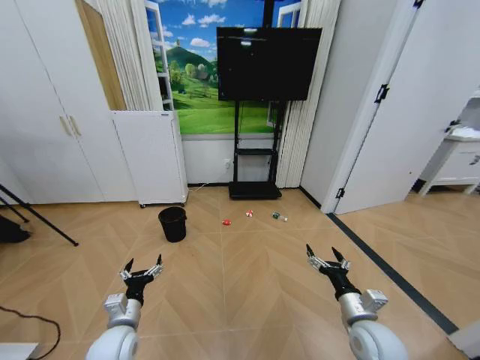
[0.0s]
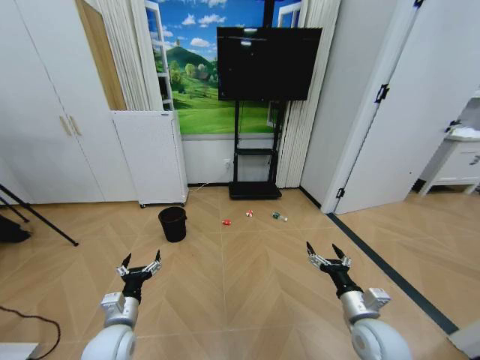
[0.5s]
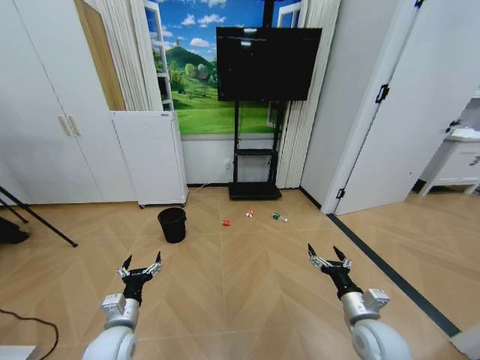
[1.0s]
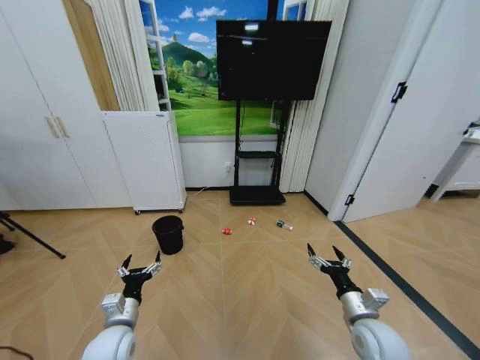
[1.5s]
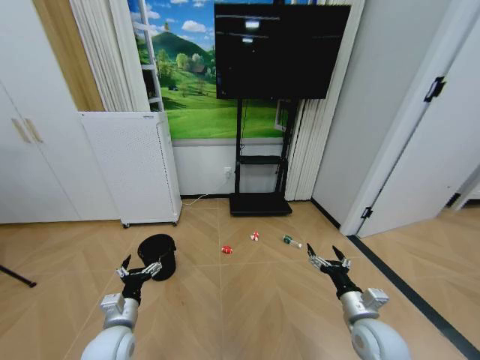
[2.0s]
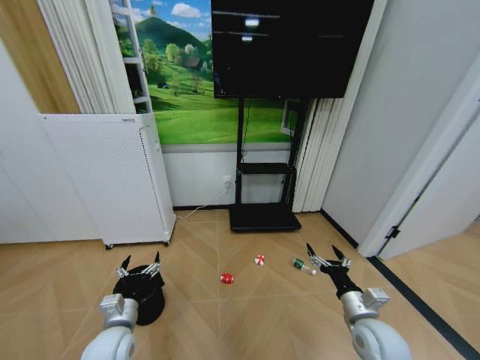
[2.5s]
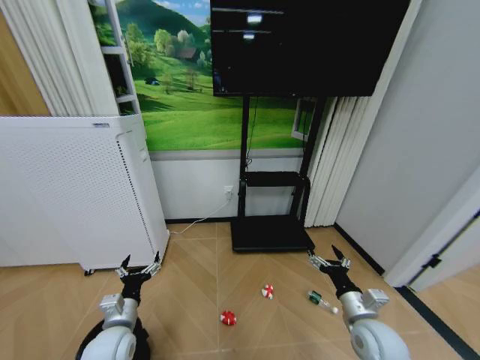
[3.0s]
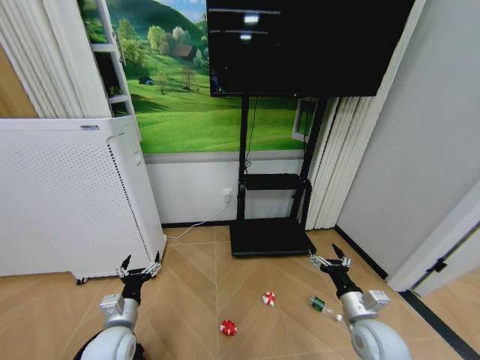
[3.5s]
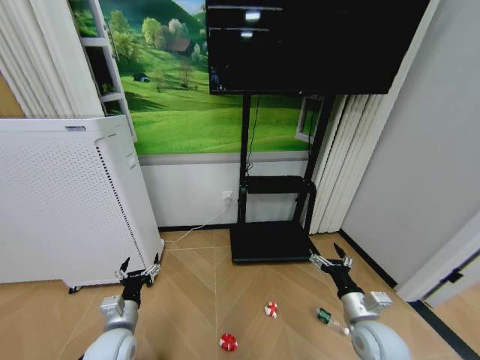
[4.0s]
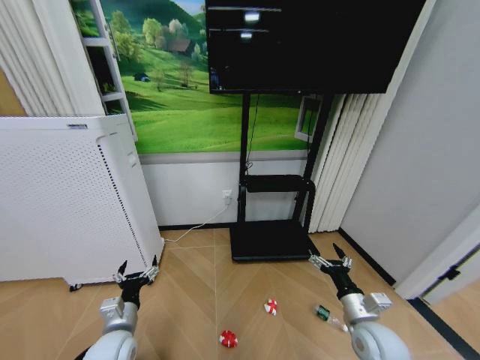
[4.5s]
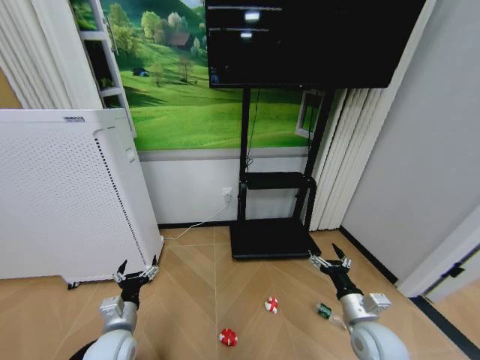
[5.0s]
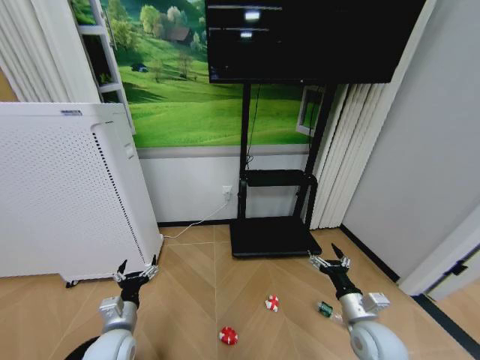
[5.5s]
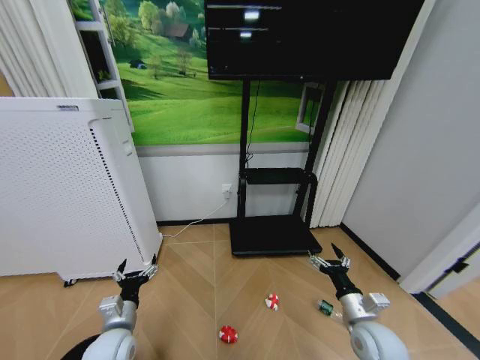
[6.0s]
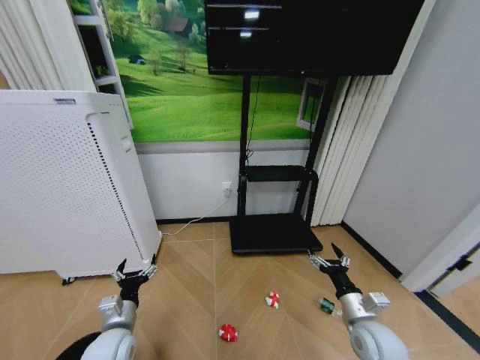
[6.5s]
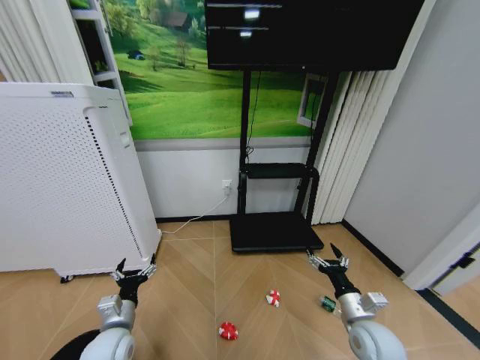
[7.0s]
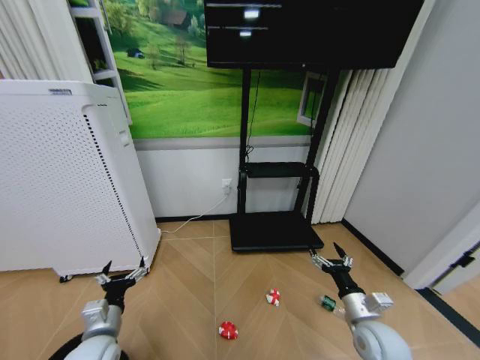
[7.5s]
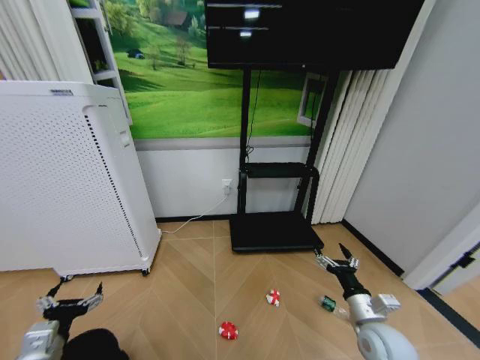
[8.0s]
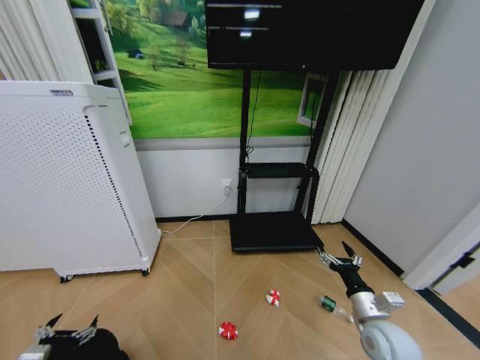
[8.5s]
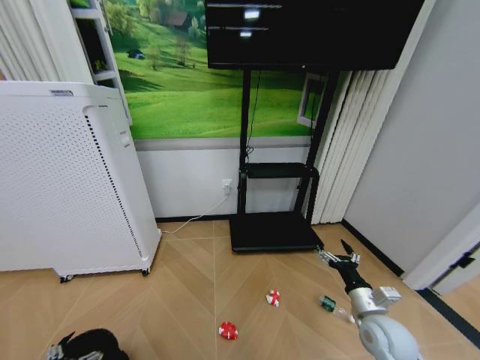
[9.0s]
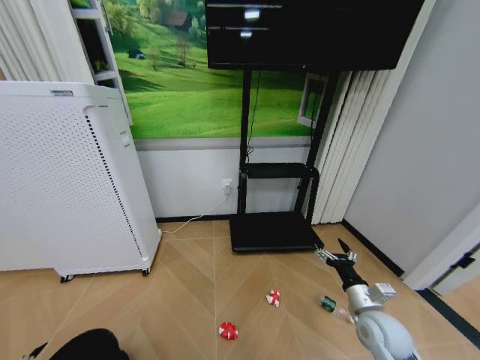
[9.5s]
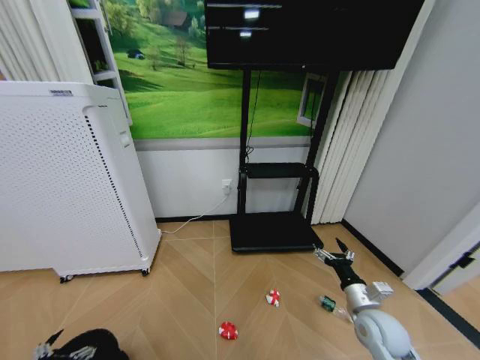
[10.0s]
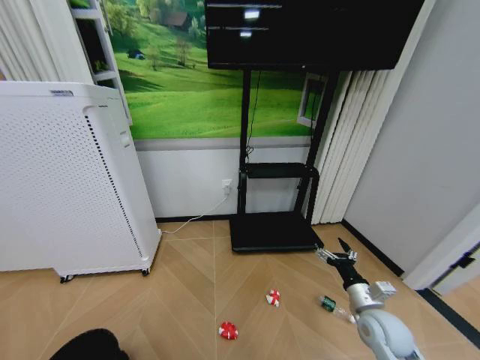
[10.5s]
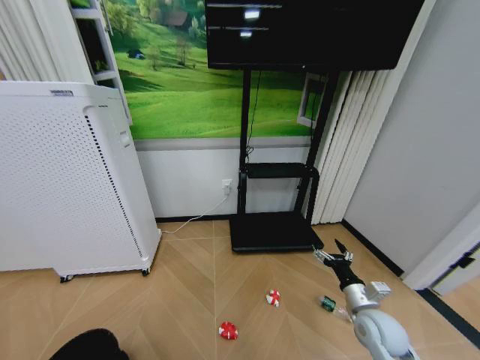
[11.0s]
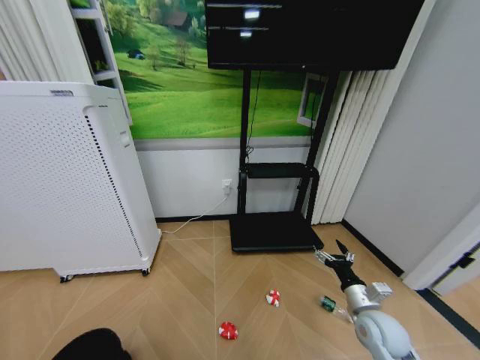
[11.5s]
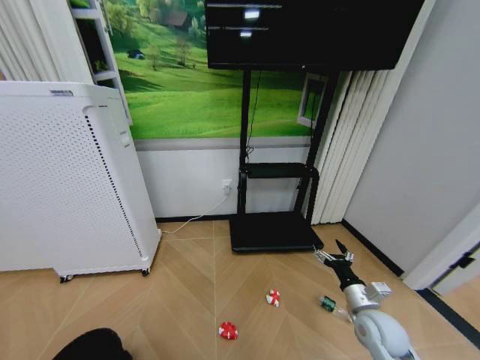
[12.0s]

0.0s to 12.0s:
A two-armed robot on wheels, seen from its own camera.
Task of the whole recording: Pick up the trash bin and place the garbage on the floor into it.
4.0s to 6.0s: Both grippers stay put.
6.0s to 8.0s: The left gripper travels to the left, backward and upward by some 15 cm.
8.0s to 10.0s: The left gripper is displaced downward and backward by approximately 10 cm.

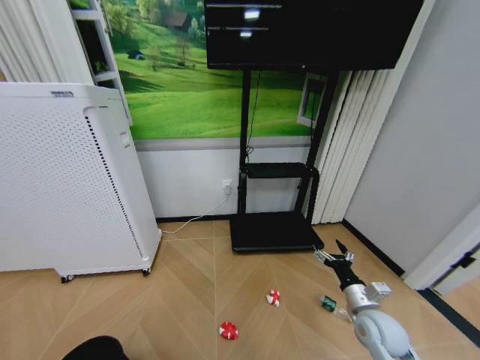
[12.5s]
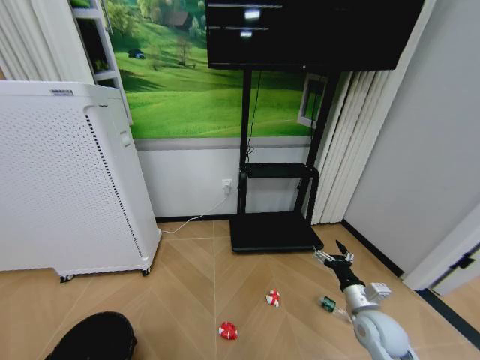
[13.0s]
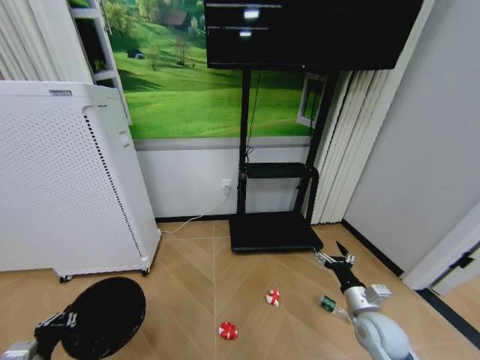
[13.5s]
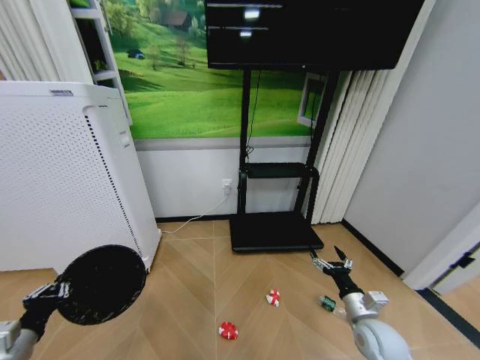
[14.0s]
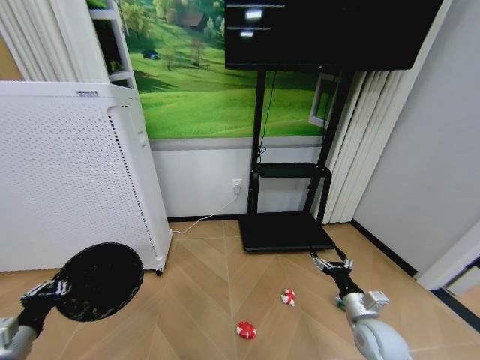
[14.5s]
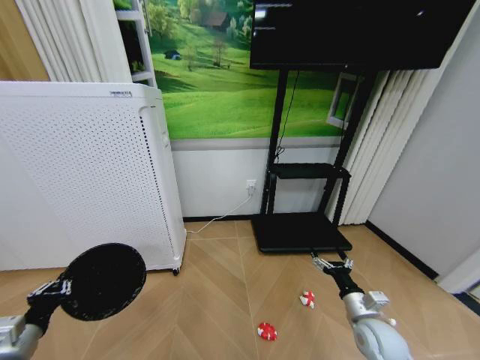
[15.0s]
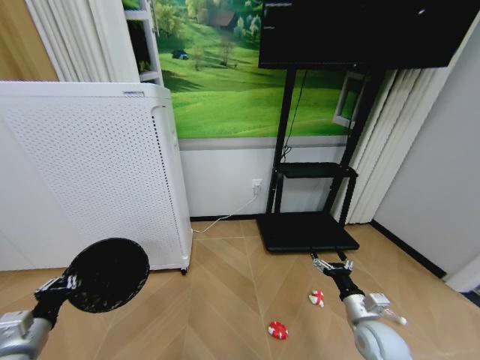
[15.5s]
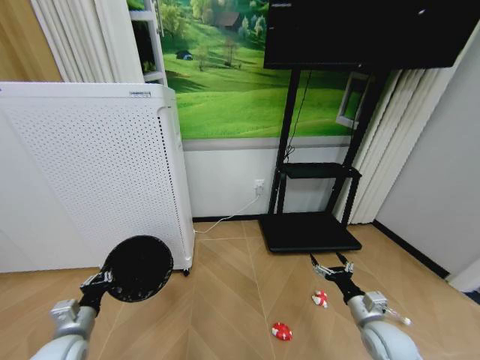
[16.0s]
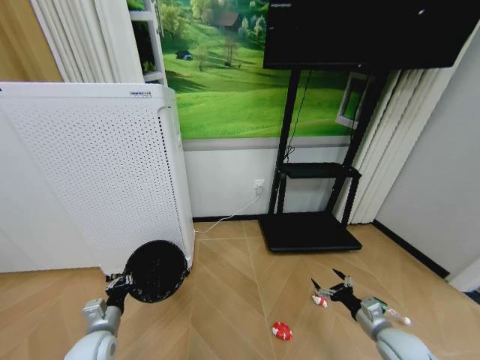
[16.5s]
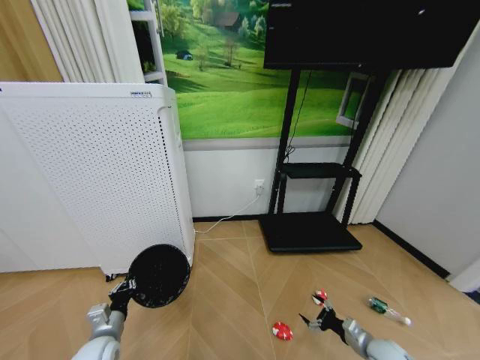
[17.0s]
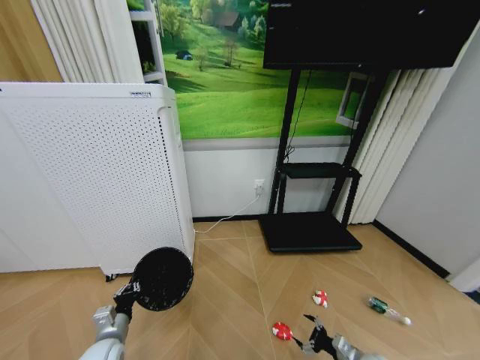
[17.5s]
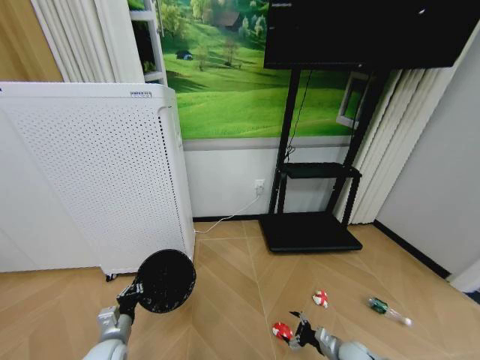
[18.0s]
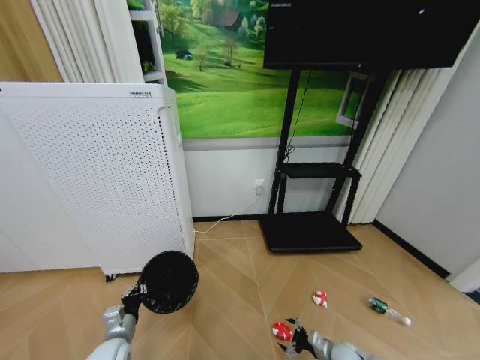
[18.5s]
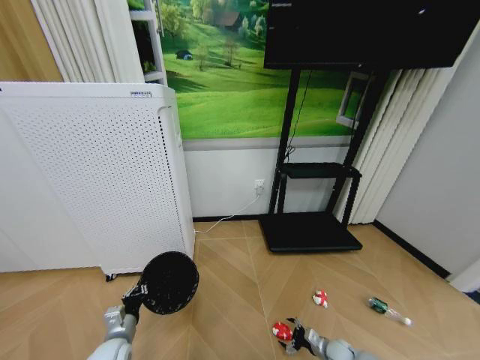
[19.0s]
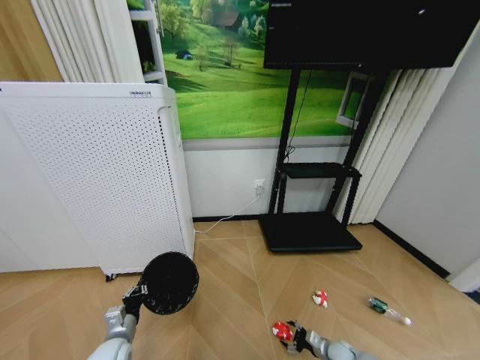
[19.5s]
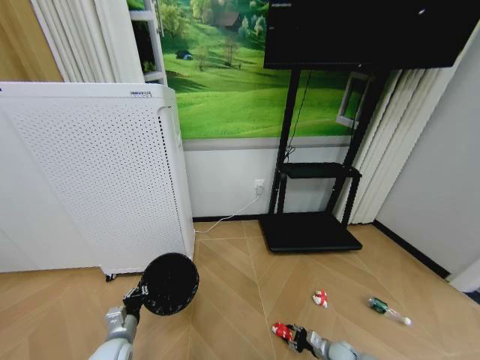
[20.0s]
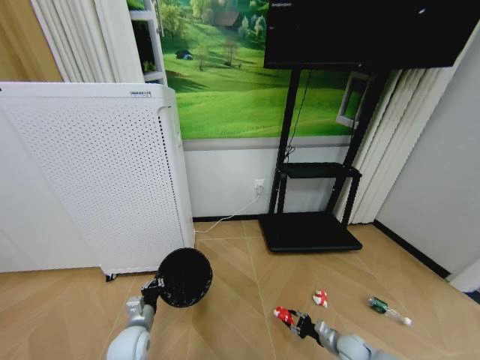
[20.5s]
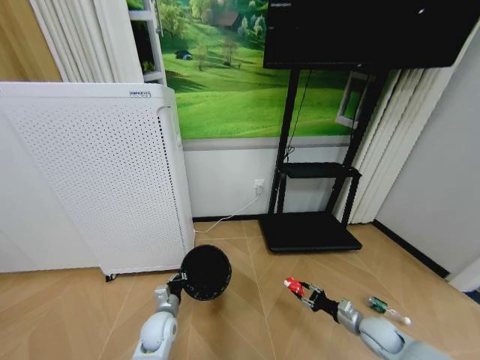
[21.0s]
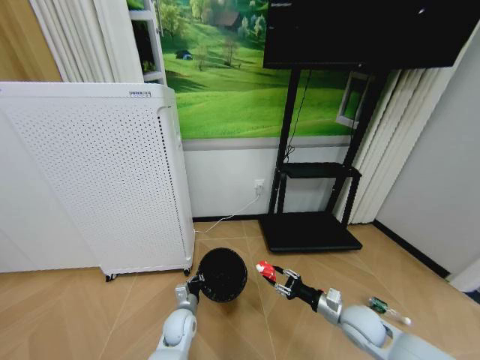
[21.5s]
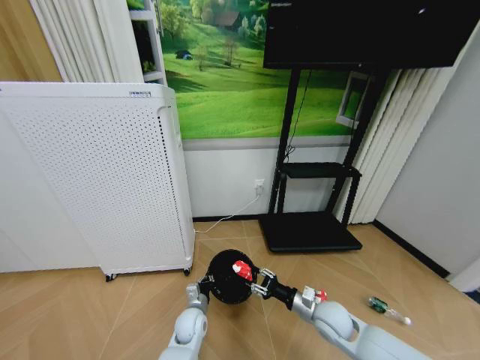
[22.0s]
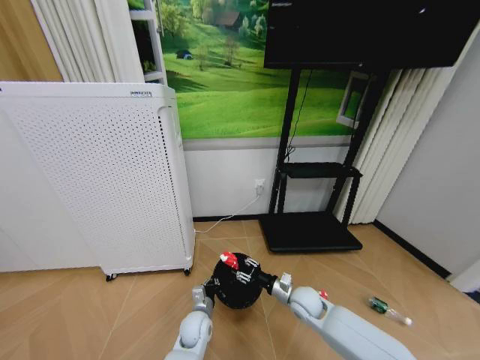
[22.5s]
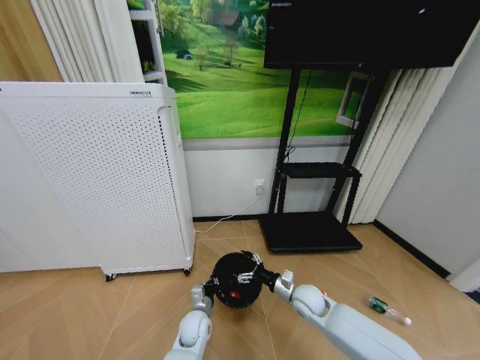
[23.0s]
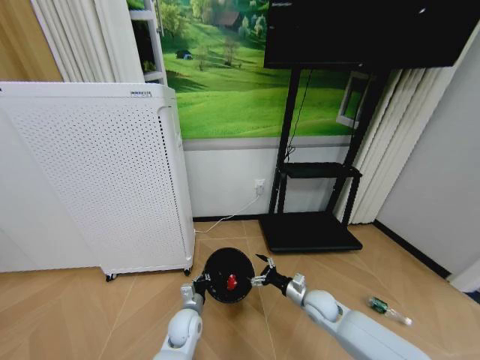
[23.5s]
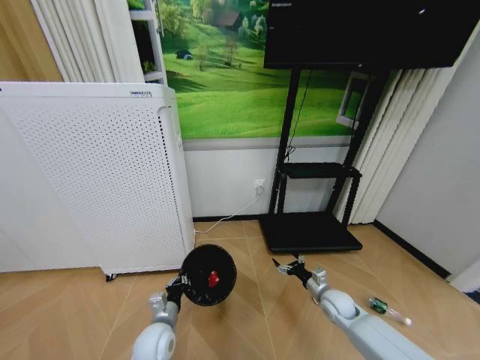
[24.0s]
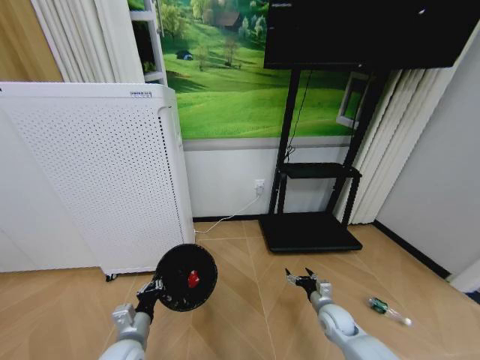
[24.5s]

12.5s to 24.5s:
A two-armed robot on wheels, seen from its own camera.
Task of the whole recording: Pick up the trash bin and place the garbage on the floor into it.
12.5s to 14.5s: The left gripper is displaced upward and forward by roughly 20 cm.
14.5s to 16.5s: The left gripper shifts about 15 cm downward, to the right and forward. Meanwhile the right gripper goes some 5 cm to the right.
16.5s to 18.5s: The right gripper goes roughly 15 cm downward.
18.5s to 20.5s: The right gripper closes its fingers.
20.5s to 22.5s: The right gripper is displaced to the left, upward and forward by about 25 cm, while the left gripper shifts some 15 cm to the right.
22.5s to 24.5s: The left gripper travels to the left, upward and backward by about 20 cm; the right gripper goes some 10 cm to the right and downward, and opens.

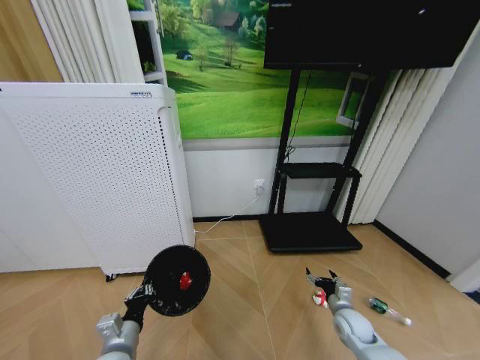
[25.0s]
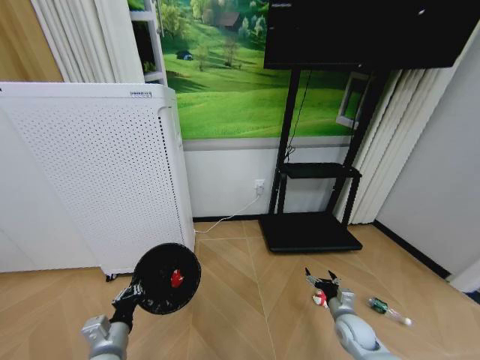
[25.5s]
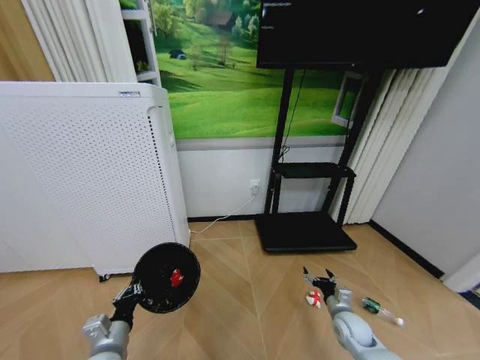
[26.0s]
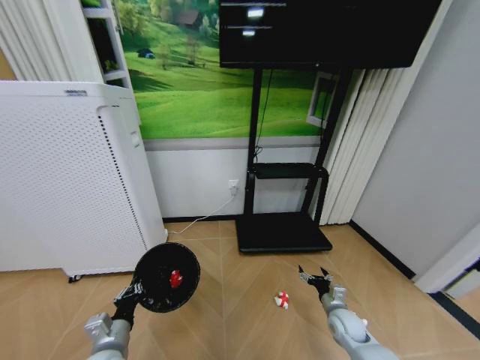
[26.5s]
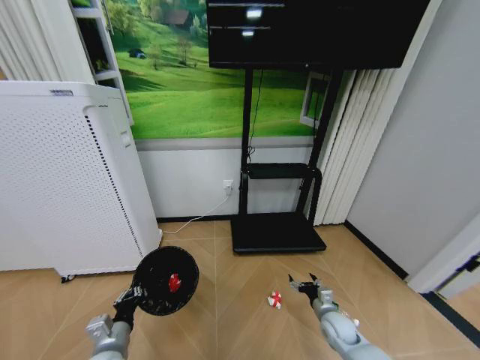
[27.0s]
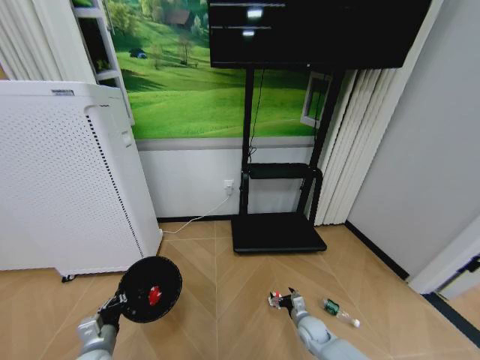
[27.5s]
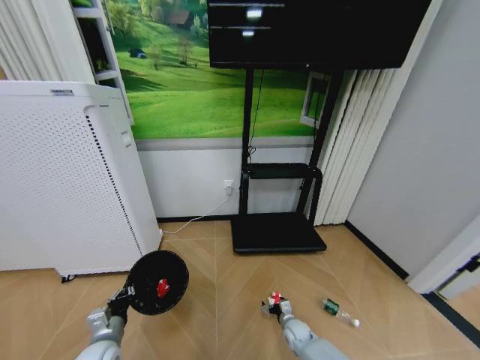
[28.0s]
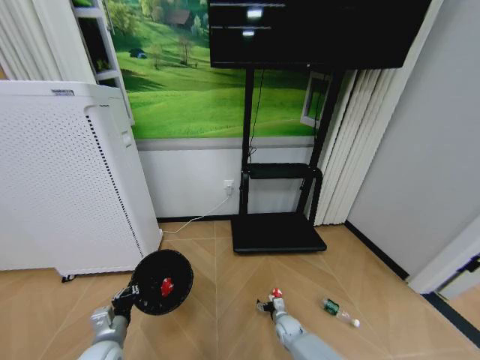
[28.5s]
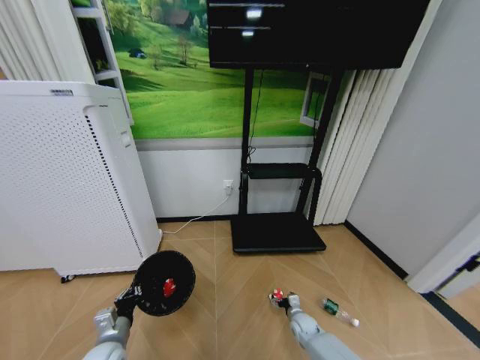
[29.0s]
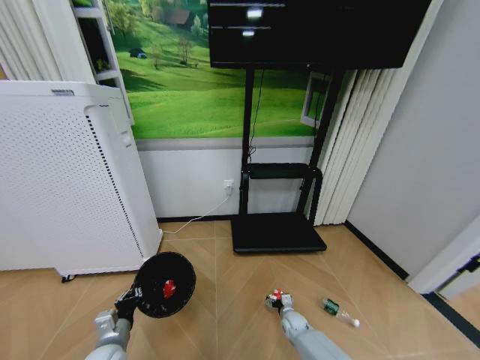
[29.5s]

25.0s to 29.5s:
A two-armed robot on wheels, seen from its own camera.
Task of the whole recording: Pick up the trash bin and place the garbage on the floor into it.
27.0s to 29.5s: The right gripper shifts approximately 15 cm downward and to the left.
